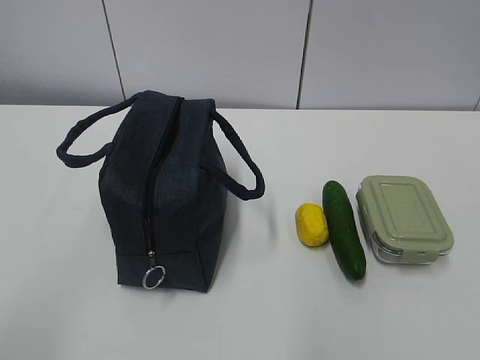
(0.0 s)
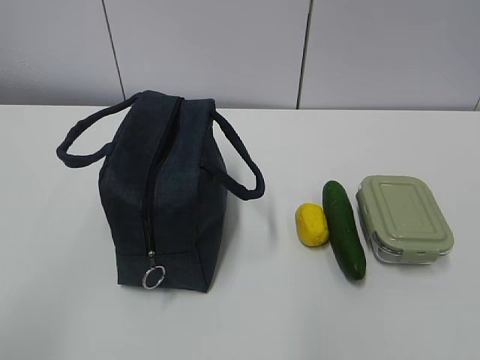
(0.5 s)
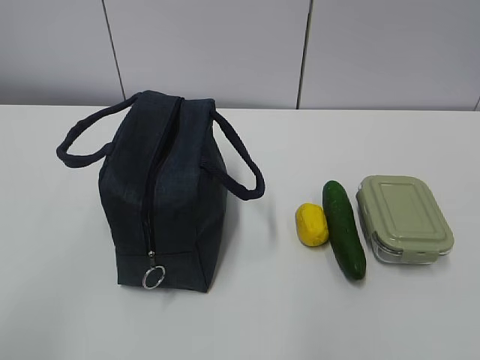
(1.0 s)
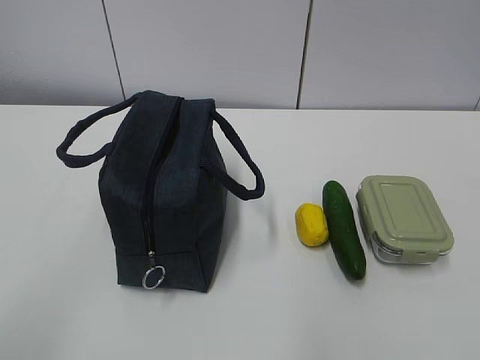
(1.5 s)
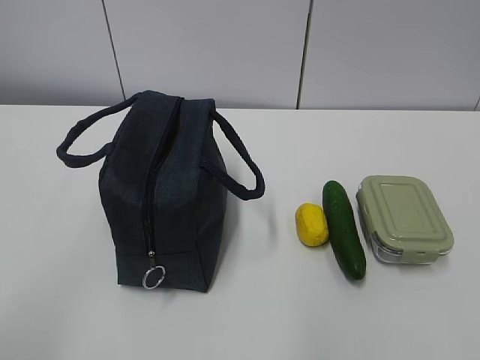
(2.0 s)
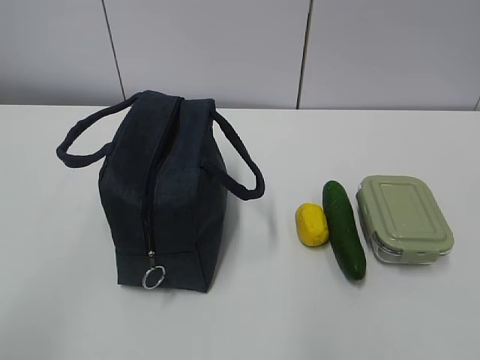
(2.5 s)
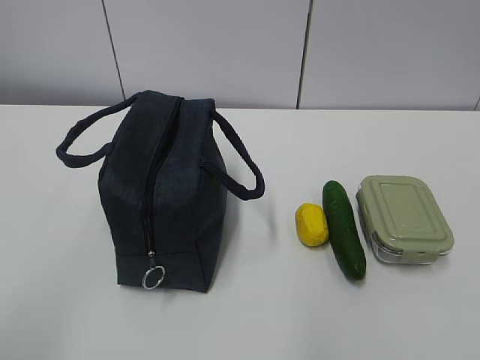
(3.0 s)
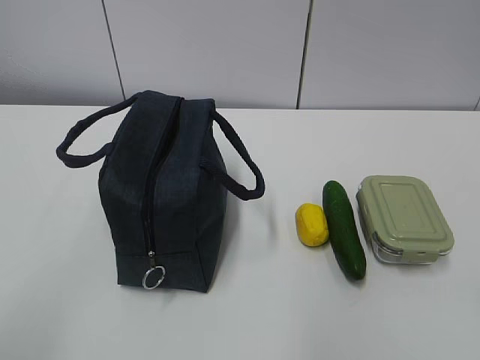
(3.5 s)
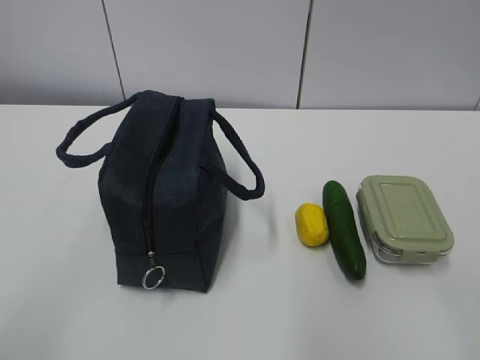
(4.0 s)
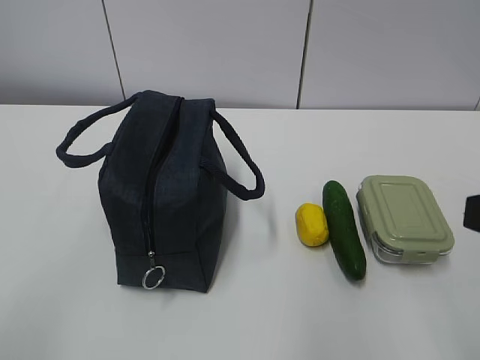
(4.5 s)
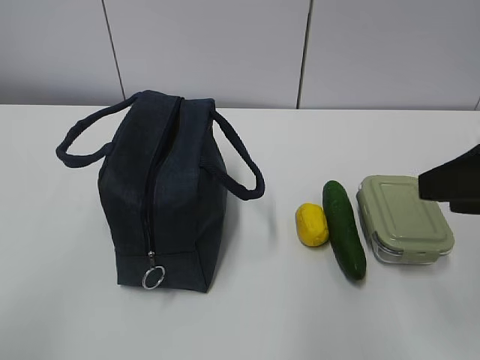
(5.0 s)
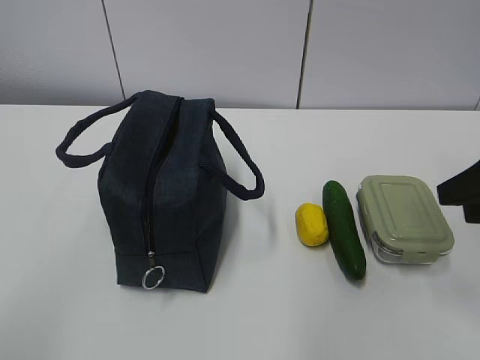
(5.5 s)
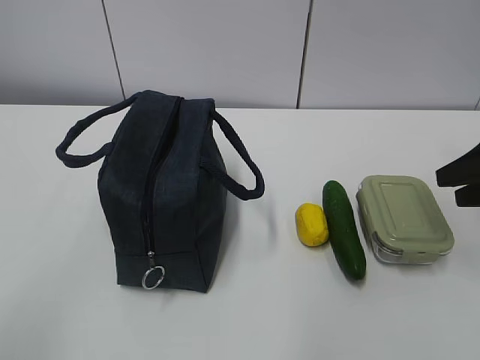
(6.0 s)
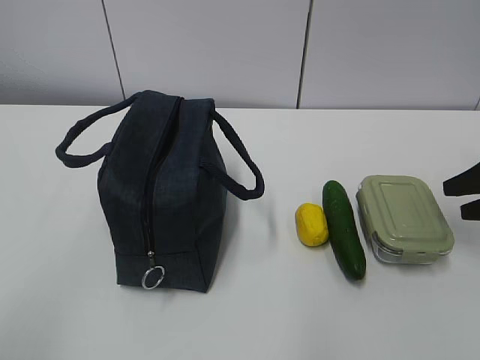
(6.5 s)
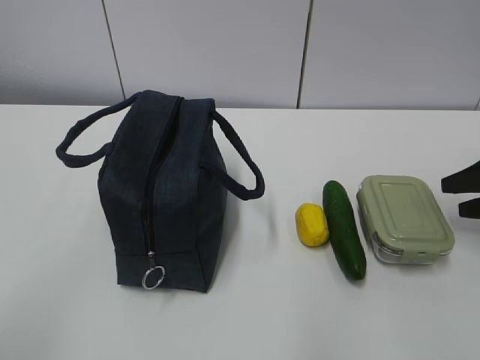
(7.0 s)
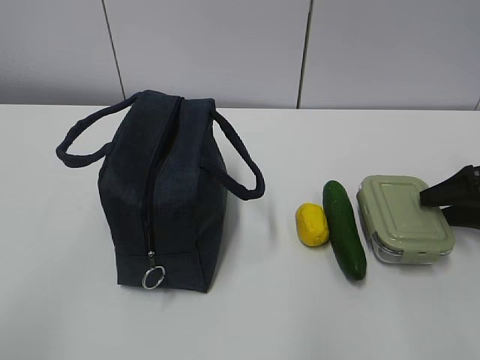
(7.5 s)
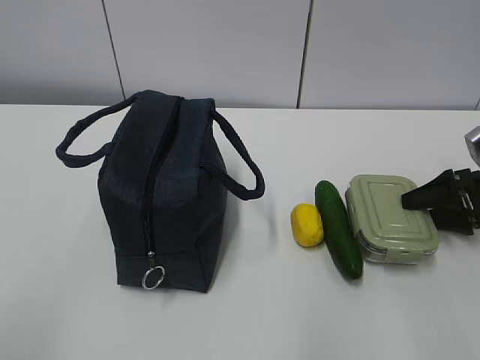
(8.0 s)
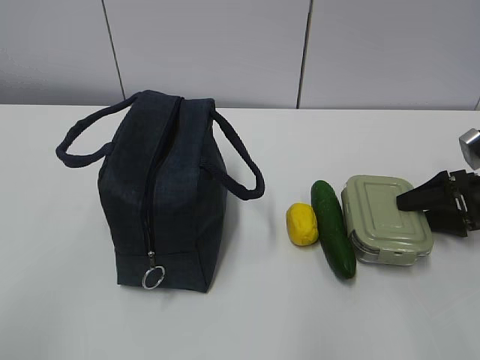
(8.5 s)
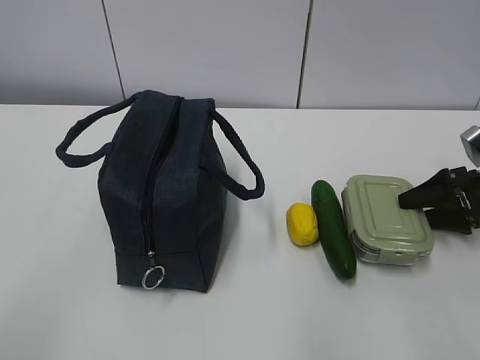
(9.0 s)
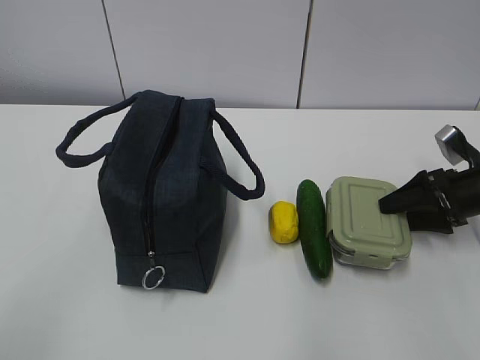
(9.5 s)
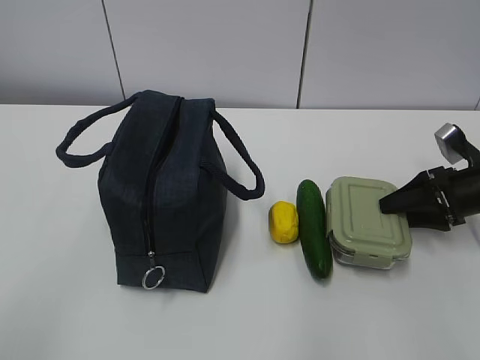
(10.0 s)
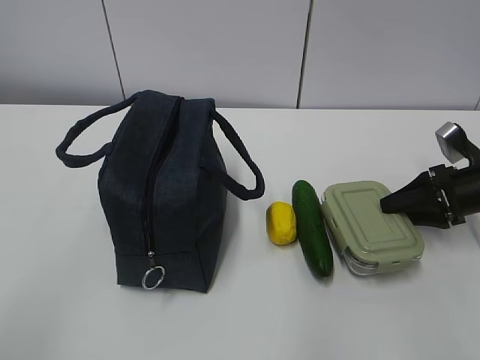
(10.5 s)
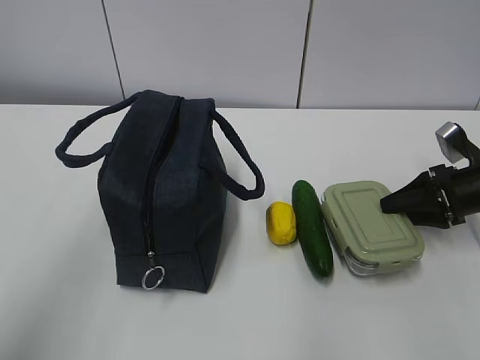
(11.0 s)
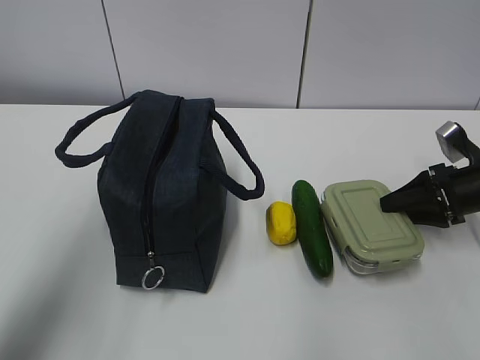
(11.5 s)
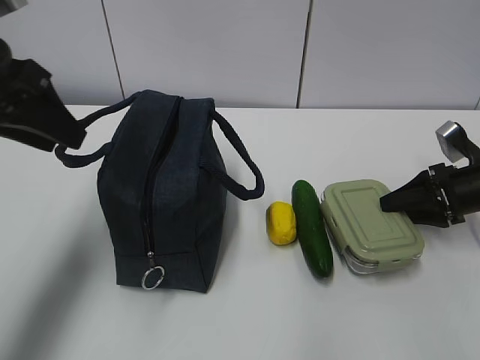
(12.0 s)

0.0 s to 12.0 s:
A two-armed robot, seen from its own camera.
Step, 0.0 to 11.0 s: Grab the lunch box with your right hand.
4.0 to 6.0 s: The right gripper goes roughly 25 cm forward and to the right.
6.0 to 8.0 s: The right gripper is displaced downward and forward by about 15 cm.
8.0 to 10.0 s: There are only small adjustments of the grippers.
10.0 to 12.0 s: The left gripper travels forward by approximately 30 cm.

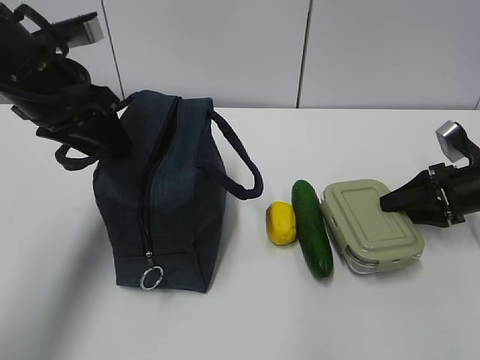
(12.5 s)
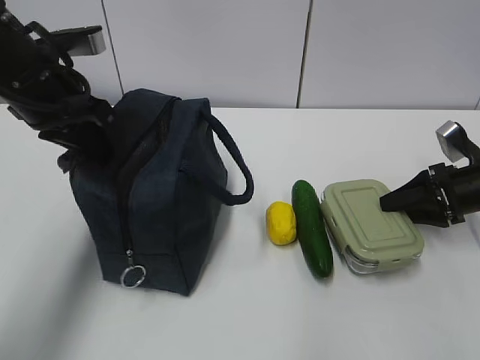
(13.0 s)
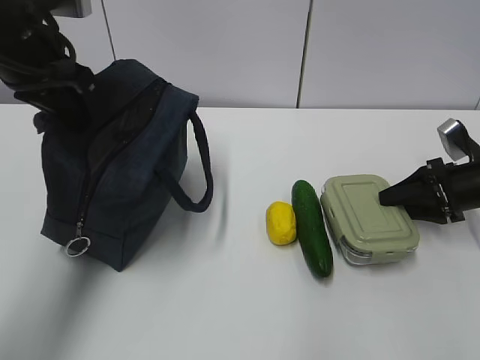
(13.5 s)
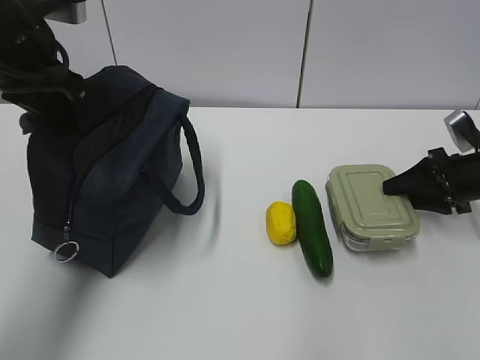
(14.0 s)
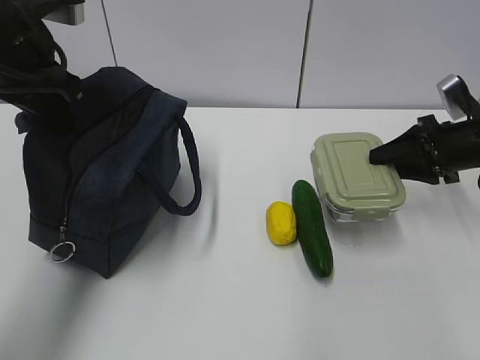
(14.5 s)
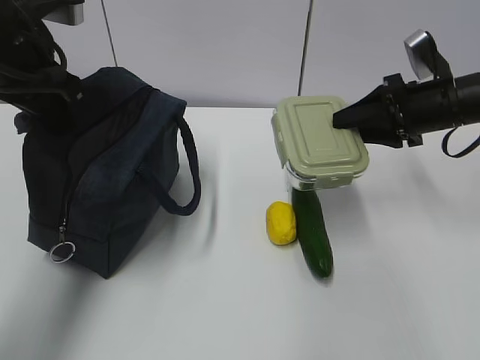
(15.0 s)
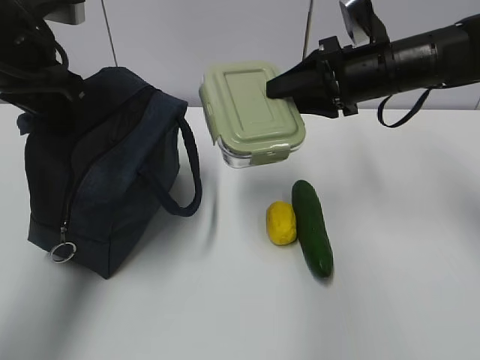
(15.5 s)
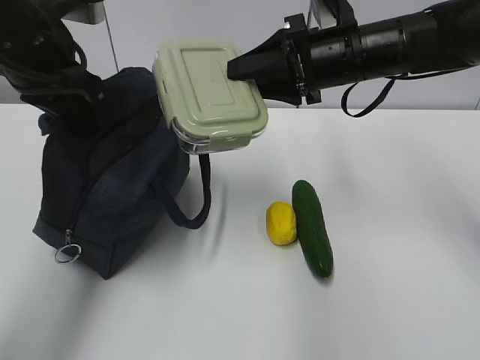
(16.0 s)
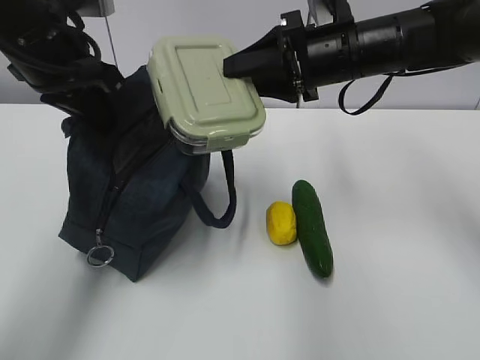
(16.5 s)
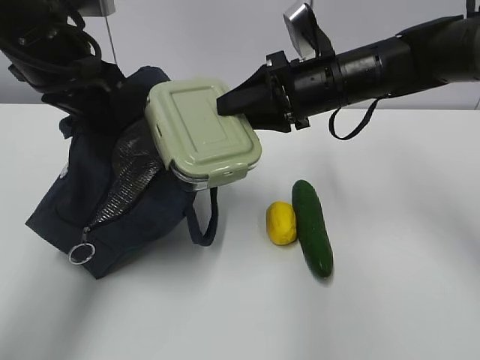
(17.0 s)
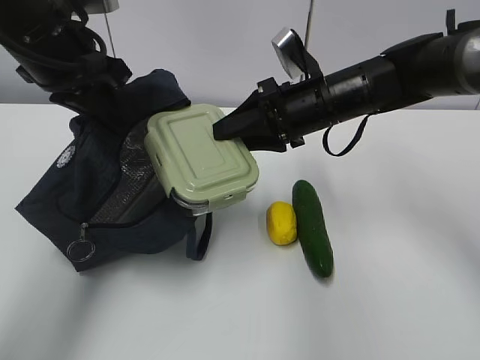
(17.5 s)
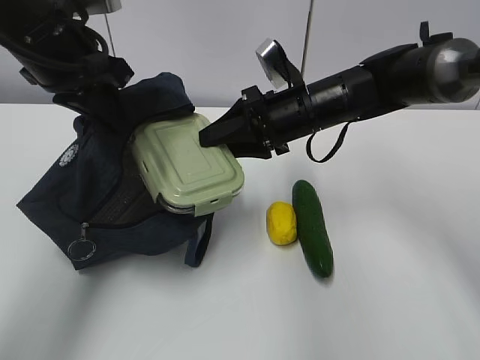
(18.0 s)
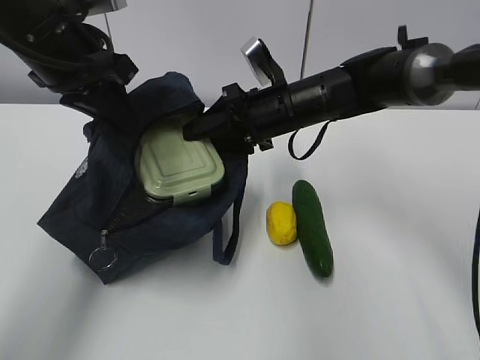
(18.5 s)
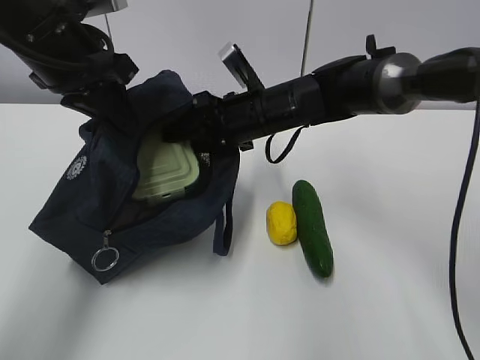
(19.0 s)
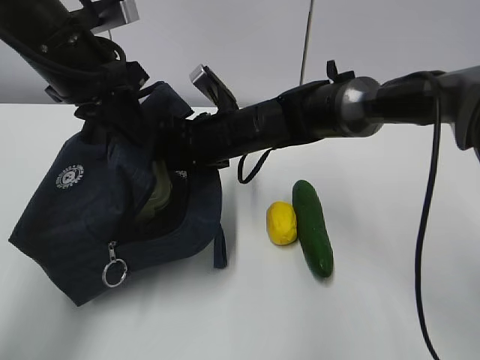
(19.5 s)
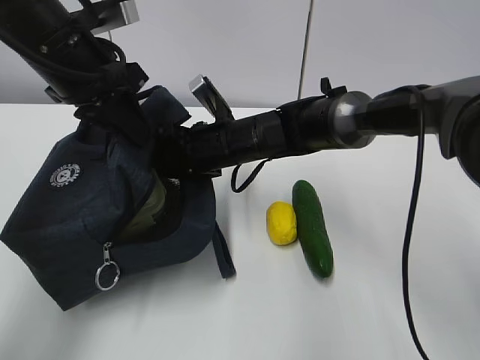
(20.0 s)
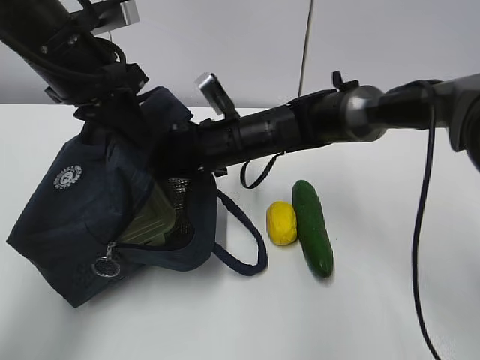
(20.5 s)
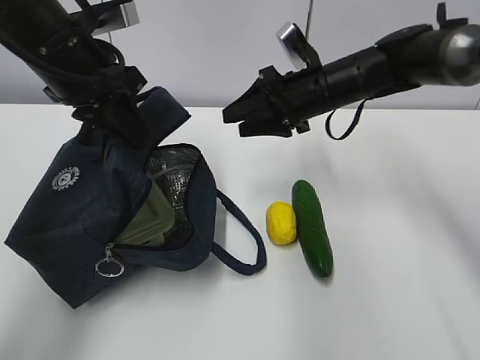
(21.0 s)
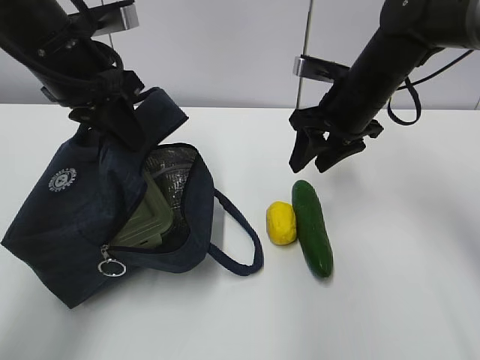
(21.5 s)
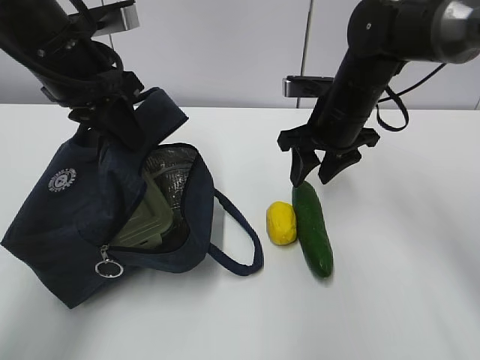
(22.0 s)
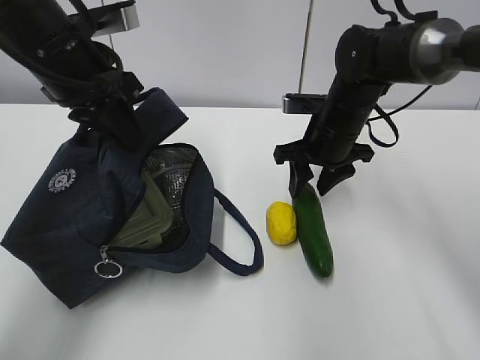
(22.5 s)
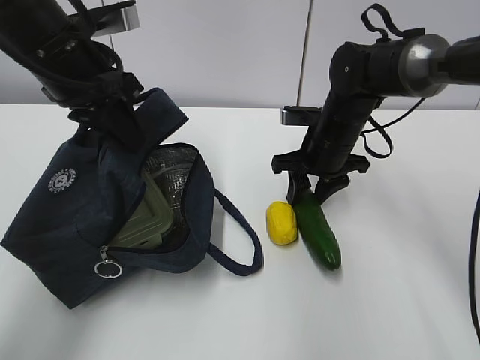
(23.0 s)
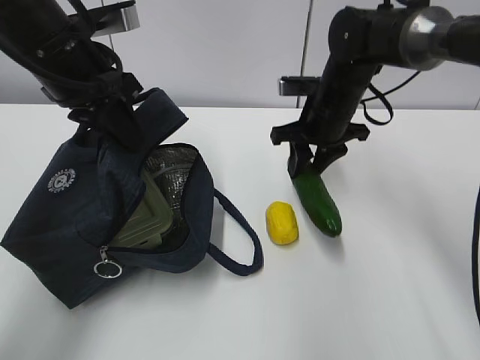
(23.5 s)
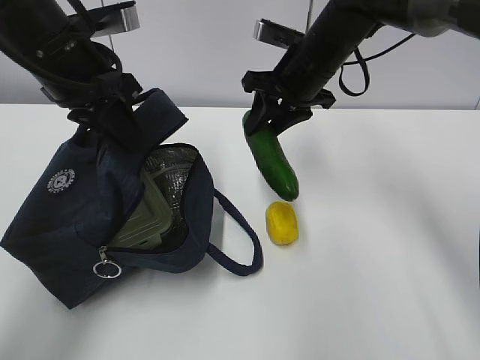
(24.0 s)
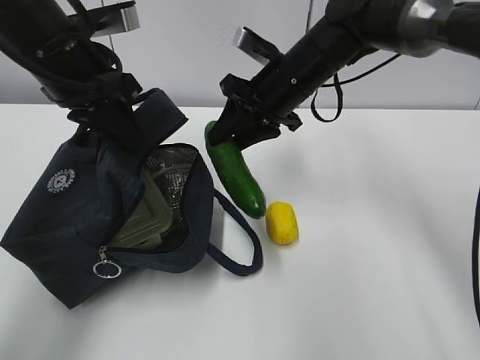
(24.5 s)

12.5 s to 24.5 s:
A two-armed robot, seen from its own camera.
Step, 14.0 to 16.5 s: Place it into the bag with your right hand.
Step, 17.0 to 19.0 s: Grab the cucumber with your right hand.
Step, 19.5 to 22.5 s: Place it into the bag with your right hand.
12.5 to 14.5 s: The right gripper shifts some 5 cm upward, while the left gripper closes.
14.5 to 16.5 s: The right gripper moves to the left and upward, some 20 cm.
16.5 to 18.5 s: The right gripper moves downward and to the left, approximately 10 cm.
18.5 to 20.5 s: The right gripper travels to the left by some 5 cm.
20.5 to 22.5 s: The right gripper shifts about 10 cm to the right.
22.5 to 24.5 s: The right gripper is displaced upward and to the left by about 10 cm.

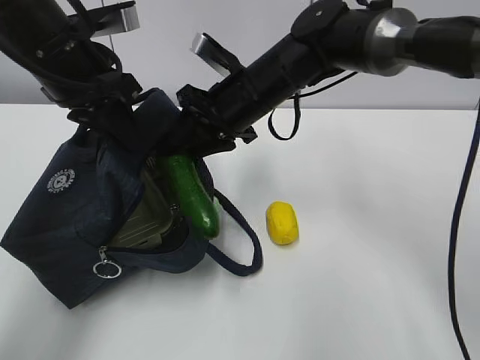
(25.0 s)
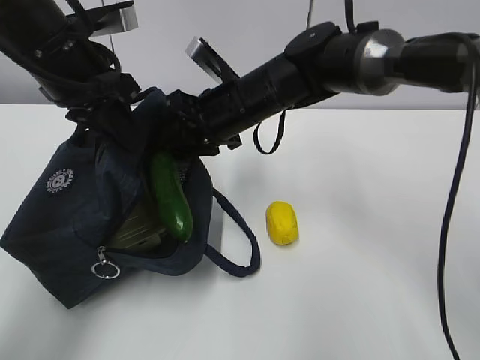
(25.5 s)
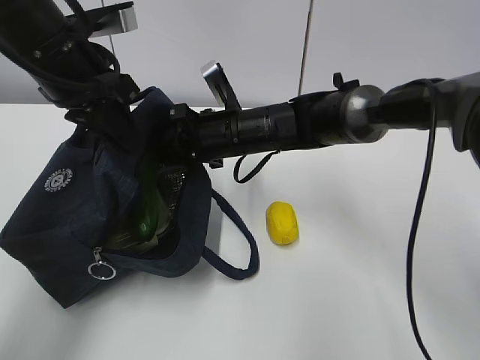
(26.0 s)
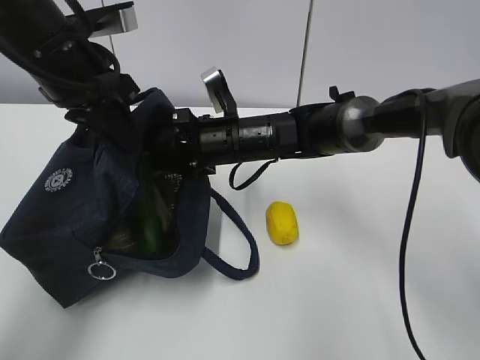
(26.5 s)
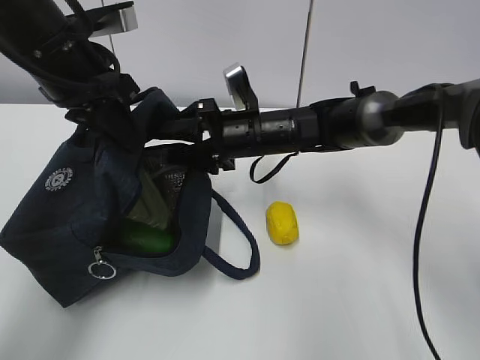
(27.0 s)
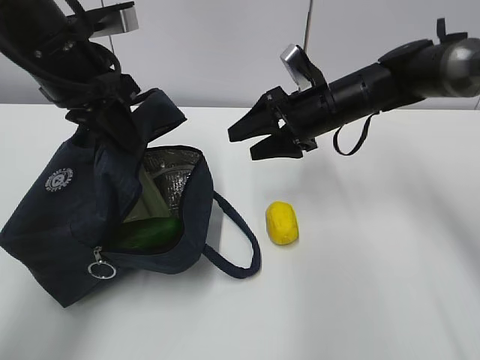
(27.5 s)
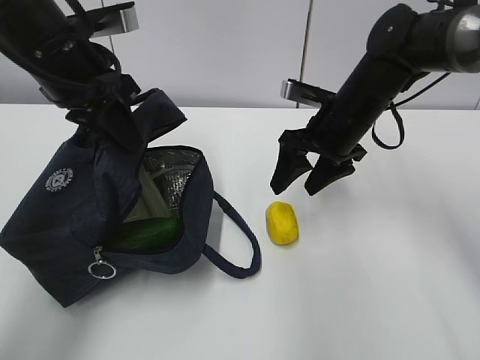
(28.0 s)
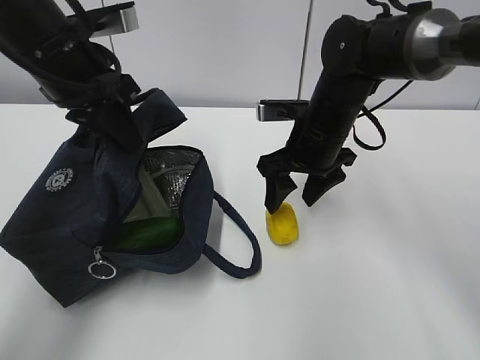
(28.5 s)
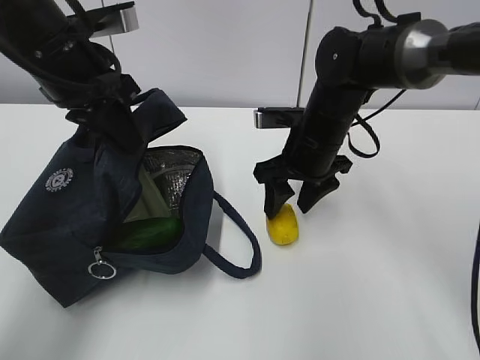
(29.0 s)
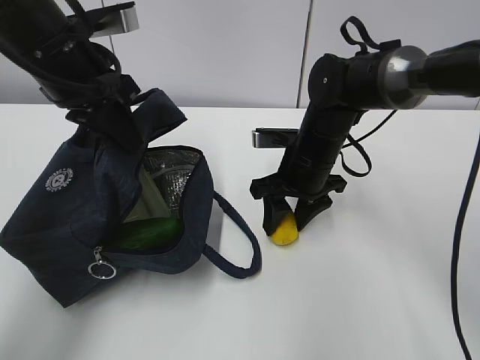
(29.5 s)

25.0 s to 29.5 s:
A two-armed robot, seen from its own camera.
Step, 27.5 to 29.0 s: Grab the lunch bag with your right hand.
25.0 to 27.0 s: The right gripper heads downward, covering roughly 5 cm, and opens up.
27.0 to 29.5 s: The right gripper goes some 5 cm to the right.
